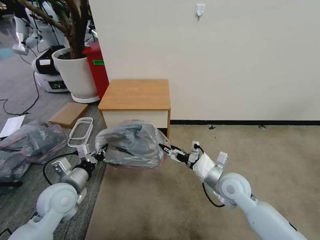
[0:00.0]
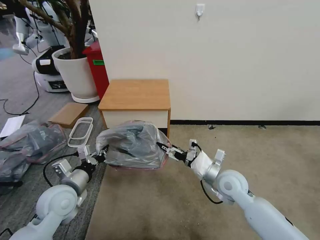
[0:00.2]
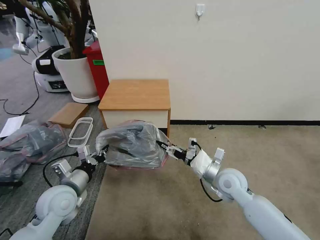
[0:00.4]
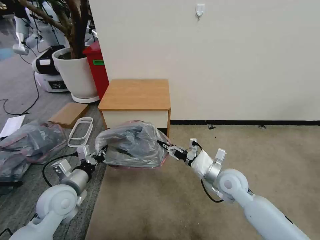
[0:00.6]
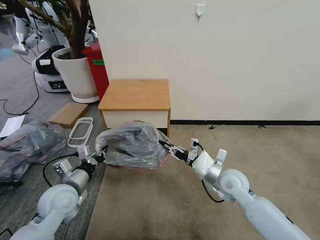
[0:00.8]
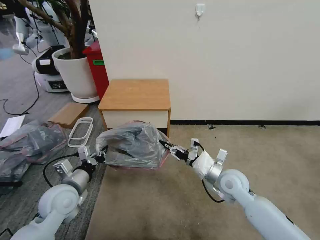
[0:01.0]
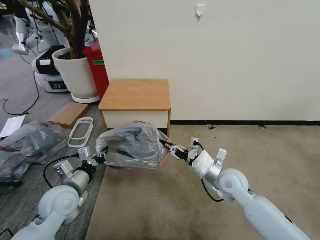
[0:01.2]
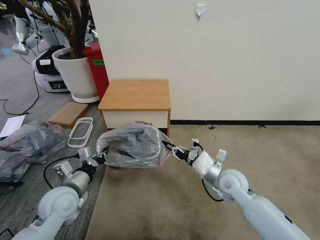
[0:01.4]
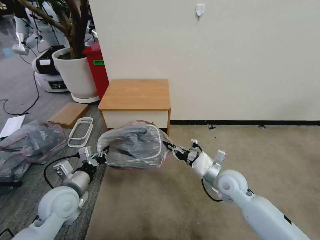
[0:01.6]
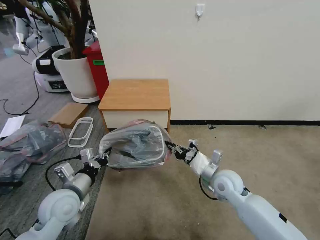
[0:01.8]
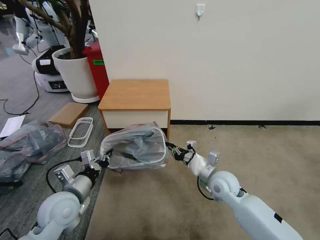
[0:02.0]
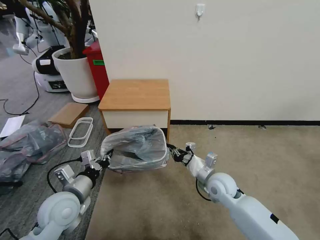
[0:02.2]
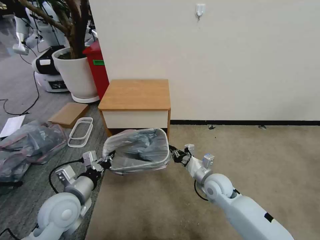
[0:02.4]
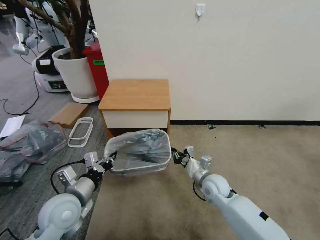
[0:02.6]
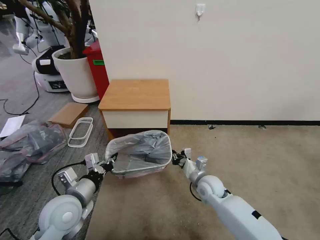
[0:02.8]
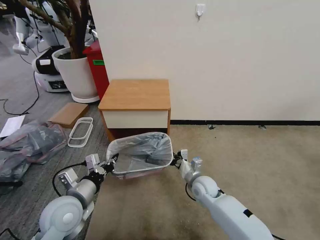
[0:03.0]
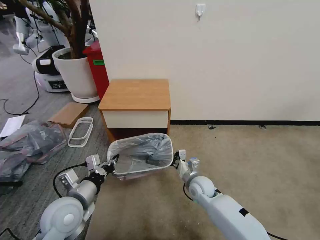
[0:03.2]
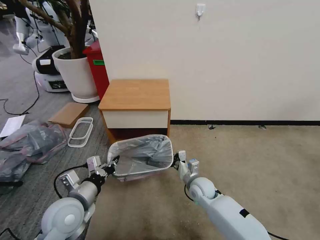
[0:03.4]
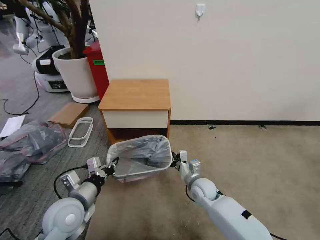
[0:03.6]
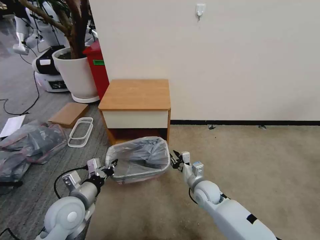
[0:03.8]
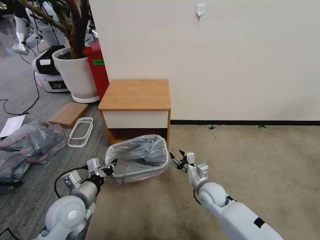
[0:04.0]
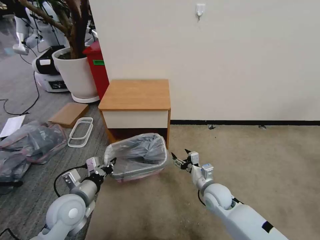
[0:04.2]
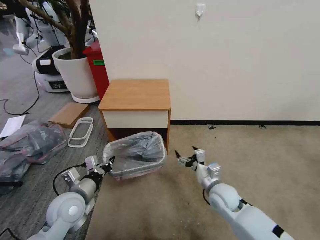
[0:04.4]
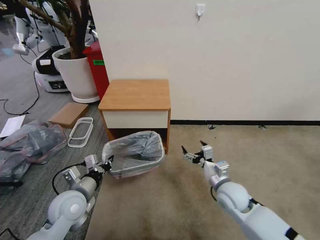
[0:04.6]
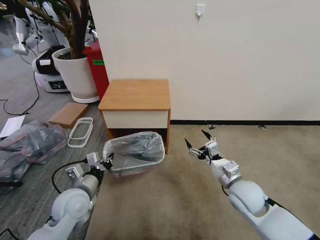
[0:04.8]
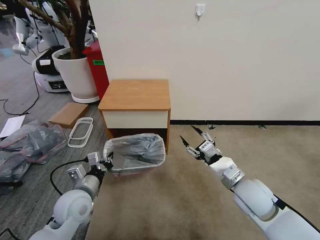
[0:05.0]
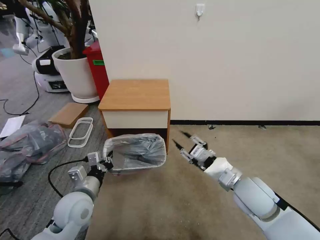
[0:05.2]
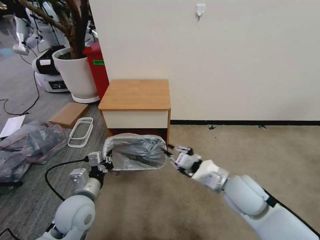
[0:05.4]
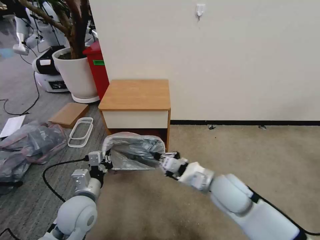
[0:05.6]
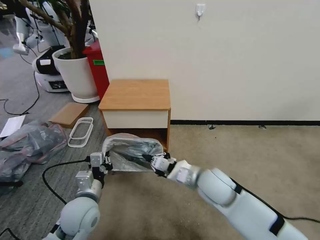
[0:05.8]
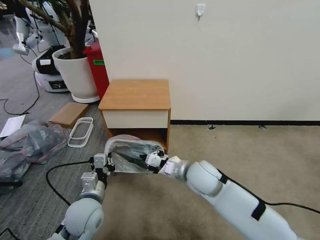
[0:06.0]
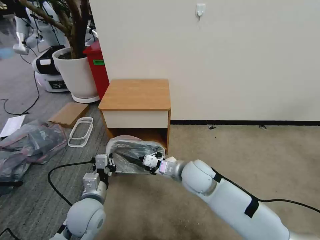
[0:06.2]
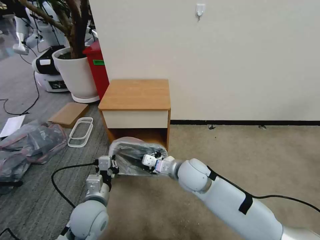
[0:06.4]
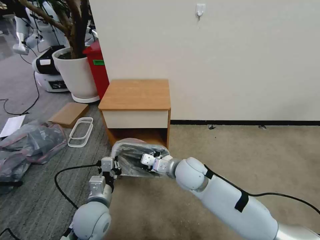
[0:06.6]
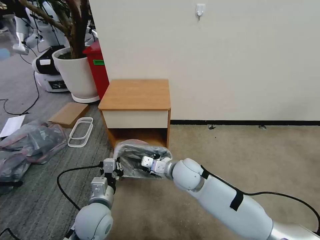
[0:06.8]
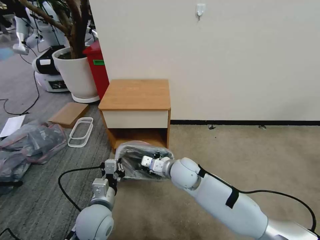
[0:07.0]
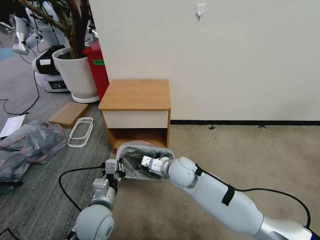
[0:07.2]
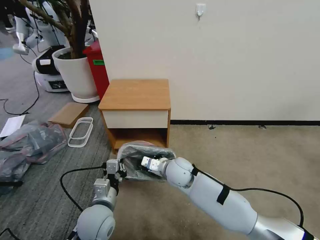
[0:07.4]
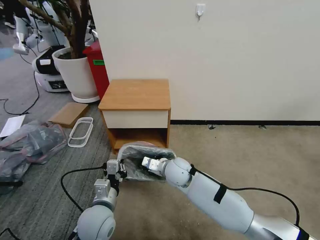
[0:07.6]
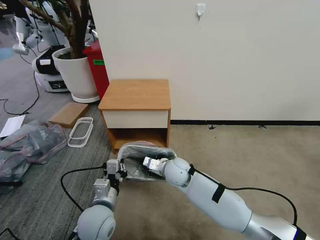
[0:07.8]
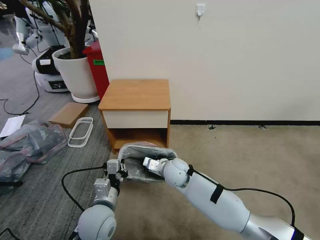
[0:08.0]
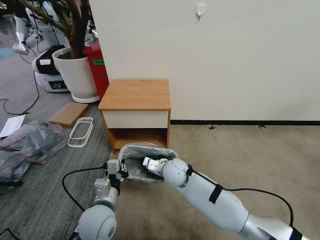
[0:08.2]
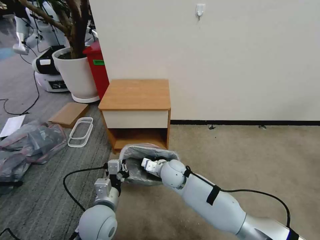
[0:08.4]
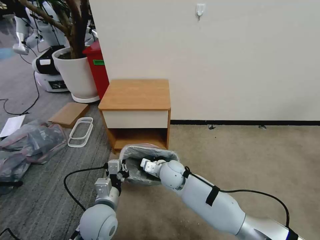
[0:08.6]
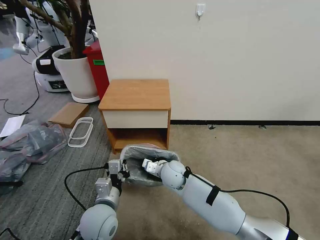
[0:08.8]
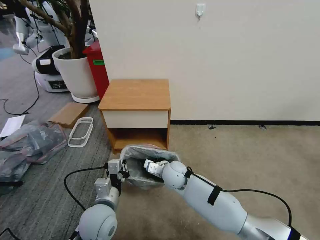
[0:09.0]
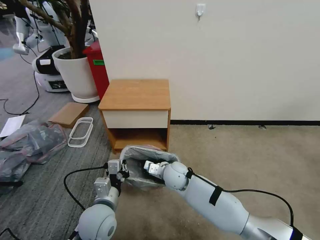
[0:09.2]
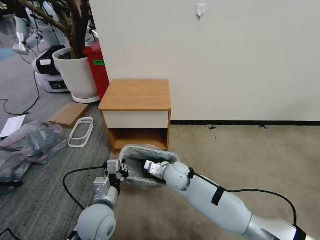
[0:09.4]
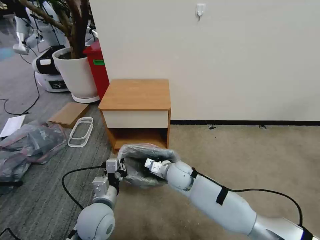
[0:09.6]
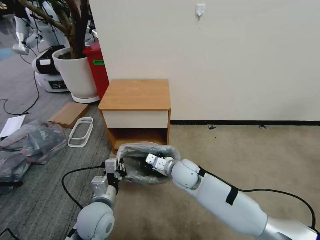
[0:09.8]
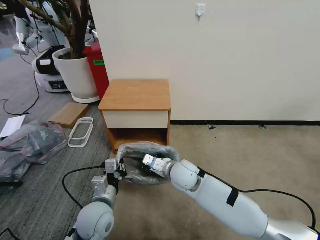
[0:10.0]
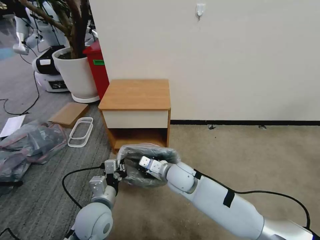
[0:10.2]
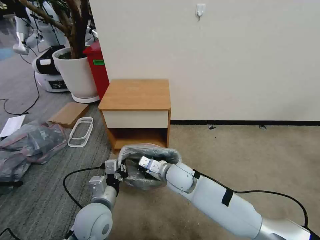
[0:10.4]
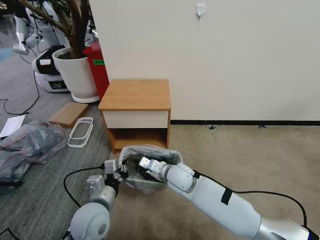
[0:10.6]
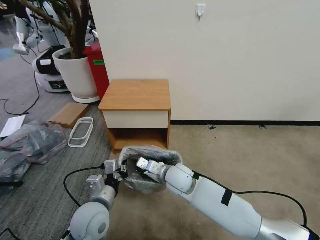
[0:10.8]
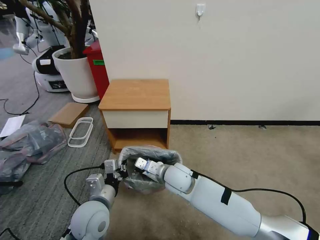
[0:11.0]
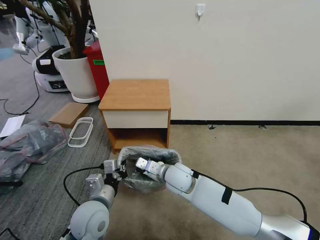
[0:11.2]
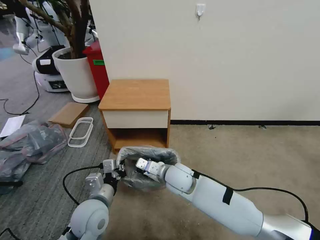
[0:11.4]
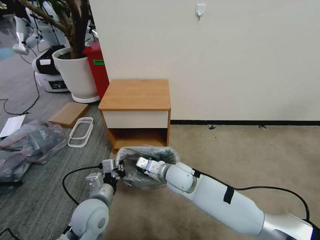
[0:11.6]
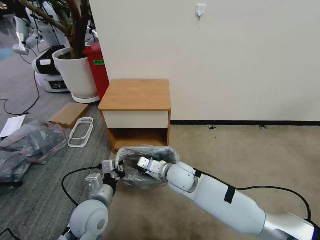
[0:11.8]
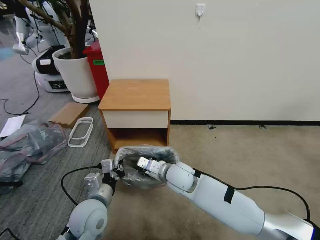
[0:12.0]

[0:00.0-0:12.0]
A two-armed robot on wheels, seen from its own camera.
Task of the whole recording: Pick up the garbage bag from the table and place it over the trash can.
0.0 to 1.6 s: The right gripper closes.
1.6 to 3.0 s: The right gripper heads downward and to the left, covering approximately 10 cm.
3.0 to 4.4 s: The right gripper shifts about 5 cm to the right, and opens.
4.4 to 6.0 s: The right gripper heads upward and to the left, covering about 15 cm, and closes. The left gripper travels to the right by roughly 5 cm.
6.0 to 7.6 s: The right gripper moves to the left, downward and forward, approximately 10 cm.
7.6 to 9.0 s: The grippers move only a little.
10.4 to 12.0 s: The grippers make only small movements.

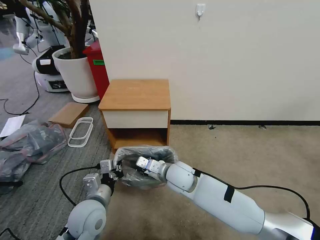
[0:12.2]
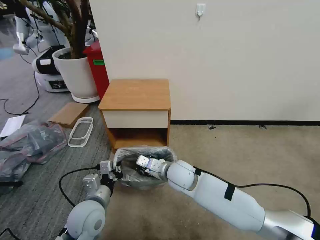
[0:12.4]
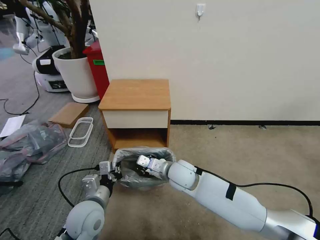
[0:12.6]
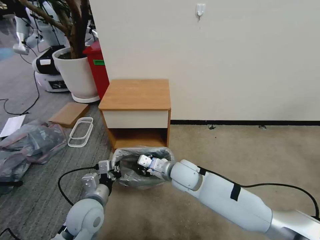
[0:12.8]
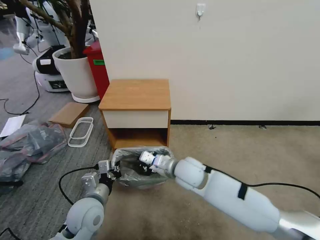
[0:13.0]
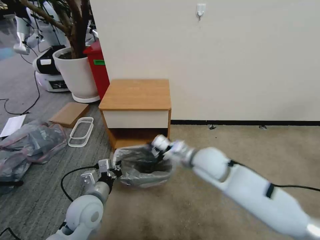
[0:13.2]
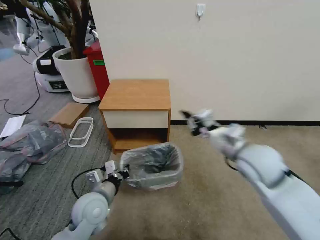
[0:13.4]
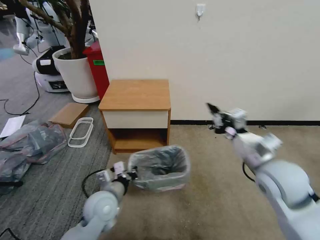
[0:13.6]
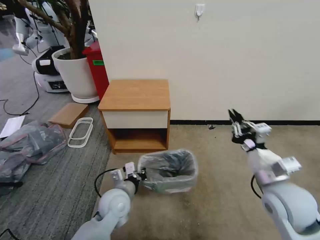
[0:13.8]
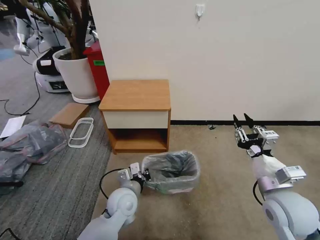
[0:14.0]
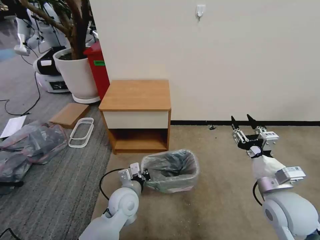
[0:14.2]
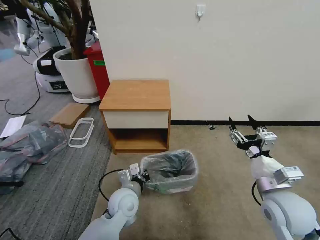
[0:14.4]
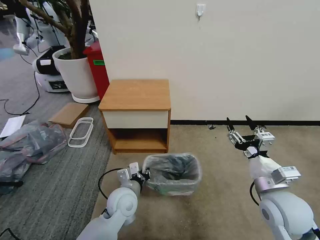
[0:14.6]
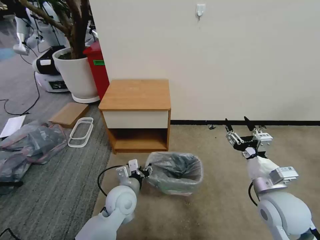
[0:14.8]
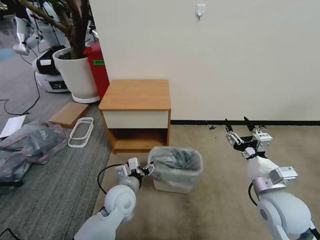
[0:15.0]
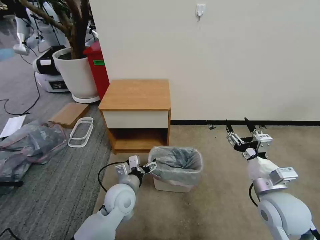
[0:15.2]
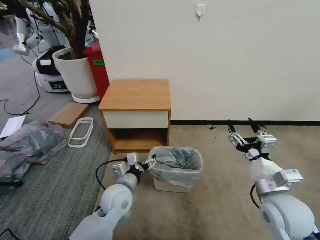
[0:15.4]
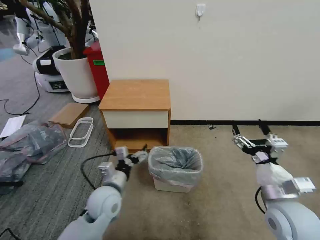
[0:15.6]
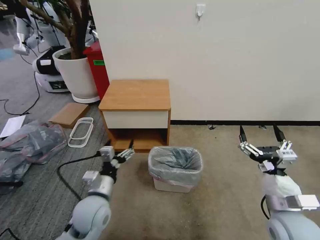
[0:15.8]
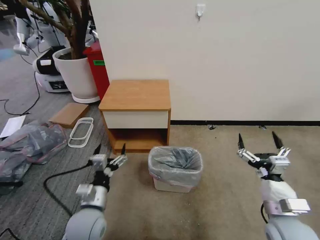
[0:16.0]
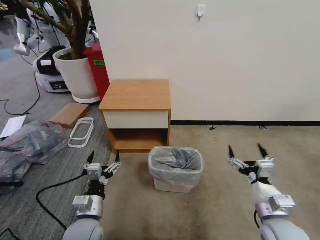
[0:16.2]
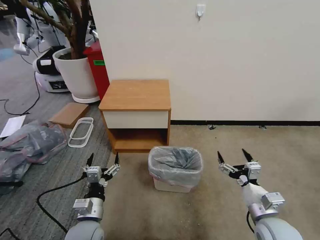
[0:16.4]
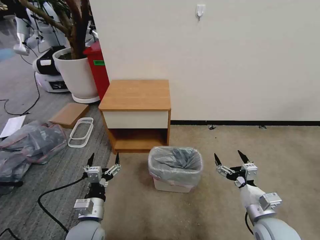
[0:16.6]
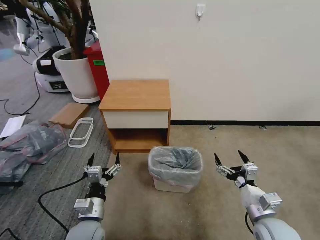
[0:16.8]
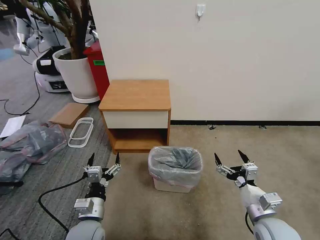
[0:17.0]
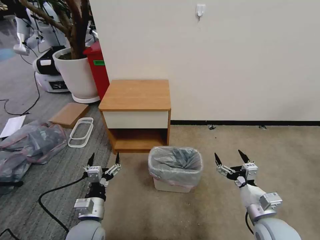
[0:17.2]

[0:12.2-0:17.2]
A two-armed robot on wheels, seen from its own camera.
Task of the whole recording: Pick up the garbage bag from the table and place it over the trash can.
12.2 to 13.8 s: The right gripper goes about 30 cm to the right, backward and upward. Meanwhile the left gripper moves to the right, approximately 5 cm.
13.8 to 15.6 s: The right gripper opens up, while the left gripper opens its fingers.
15.6 to 17.2 s: The left gripper shifts about 10 cm backward. The right gripper goes about 10 cm downward.

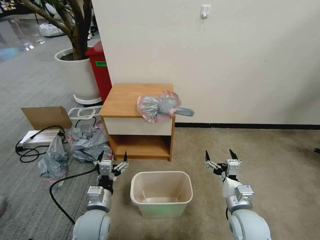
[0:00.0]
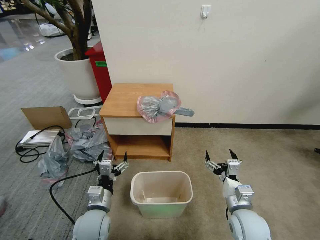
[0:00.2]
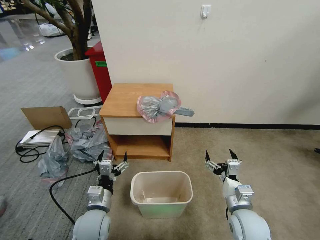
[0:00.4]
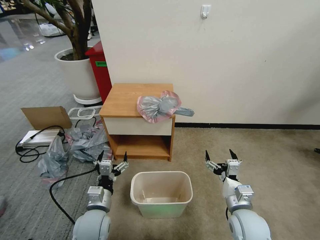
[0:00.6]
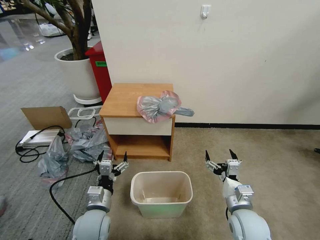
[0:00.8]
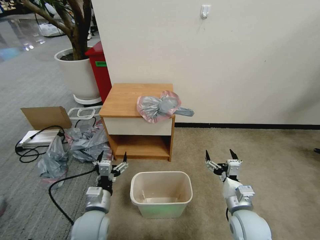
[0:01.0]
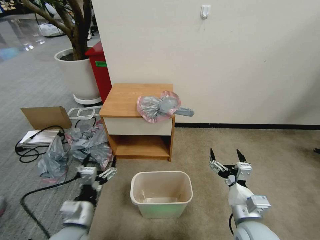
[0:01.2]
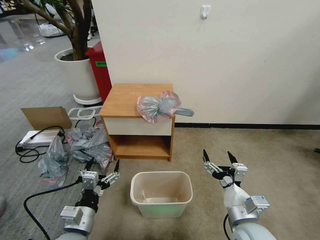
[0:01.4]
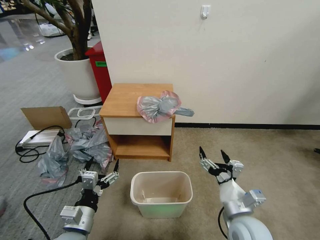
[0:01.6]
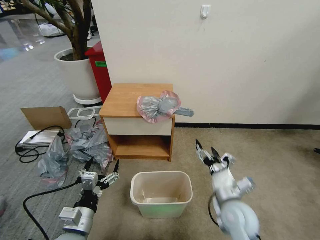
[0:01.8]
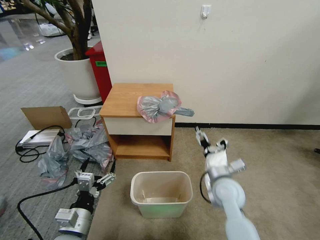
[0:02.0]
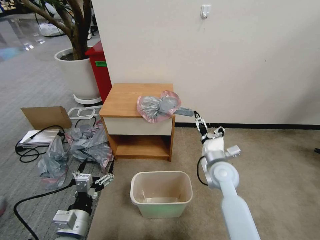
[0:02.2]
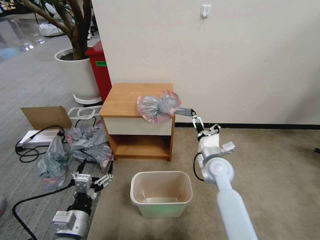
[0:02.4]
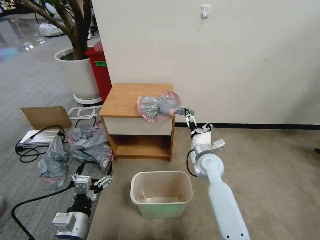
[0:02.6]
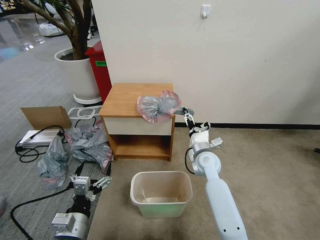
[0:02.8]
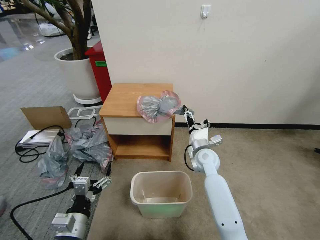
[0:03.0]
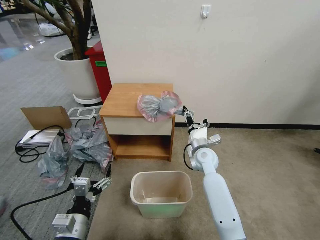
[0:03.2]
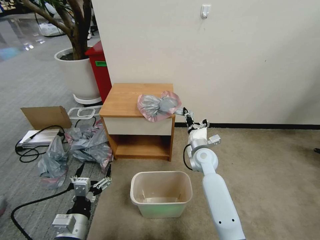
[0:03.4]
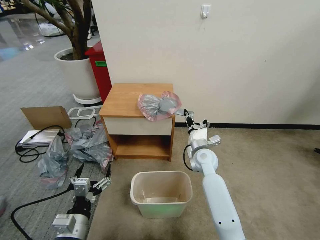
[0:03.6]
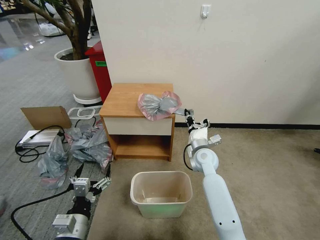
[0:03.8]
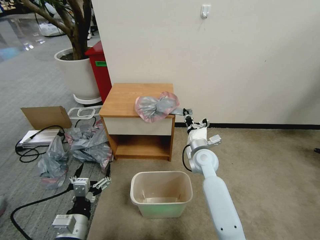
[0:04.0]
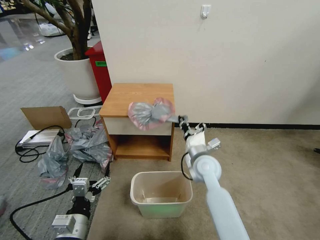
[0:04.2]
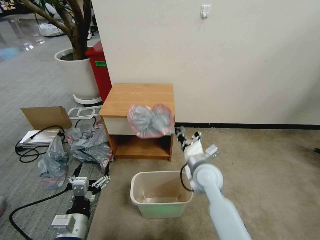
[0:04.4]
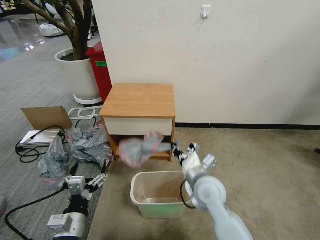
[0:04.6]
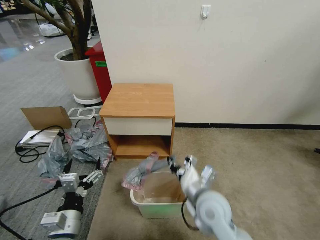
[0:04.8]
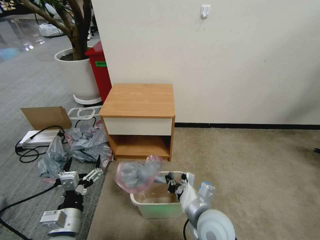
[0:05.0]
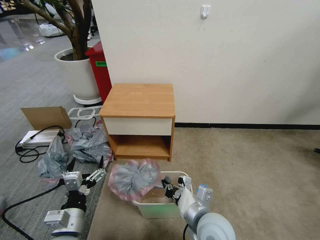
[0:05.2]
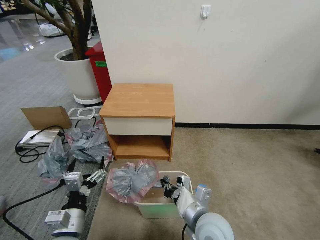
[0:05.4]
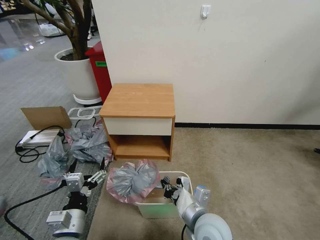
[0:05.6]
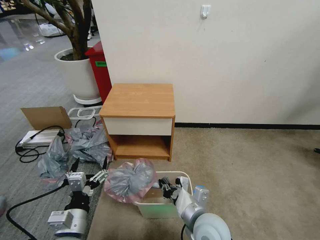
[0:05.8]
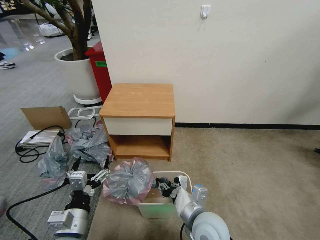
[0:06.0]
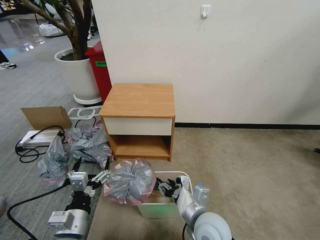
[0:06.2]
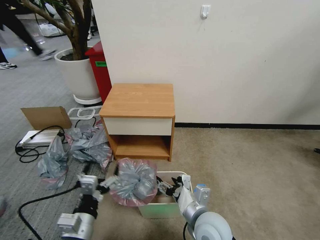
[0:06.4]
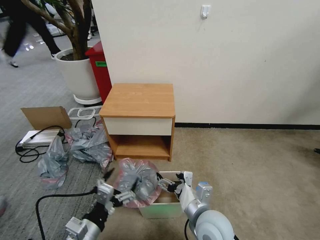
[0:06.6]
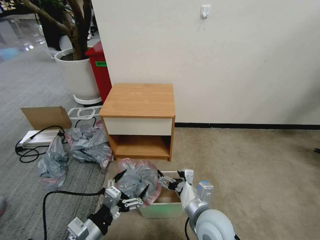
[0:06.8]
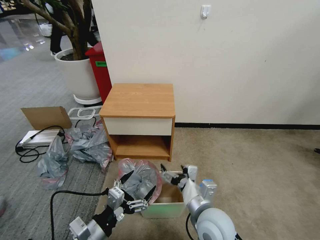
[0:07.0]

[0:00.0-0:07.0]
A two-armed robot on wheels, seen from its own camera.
Task of the whole recording: Pick up the garbage bag from the table and place it over the trash can.
1.4 to 2.8 s: The right gripper goes roughly 25 cm forward.
2.8 to 4.2 s: The right gripper changes place by about 5 cm, and closes its fingers.
4.2 to 5.6 s: The right gripper is displaced backward by roughly 20 cm.
5.6 to 7.0 s: The right gripper opens up.
